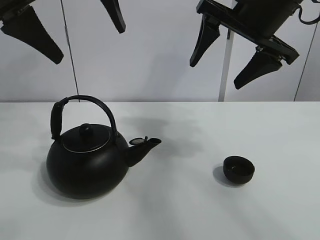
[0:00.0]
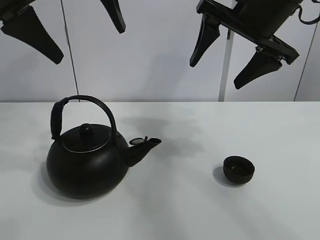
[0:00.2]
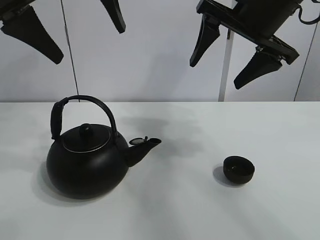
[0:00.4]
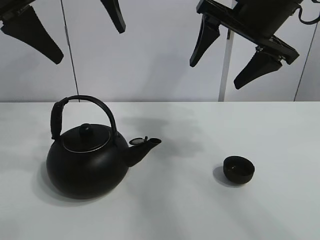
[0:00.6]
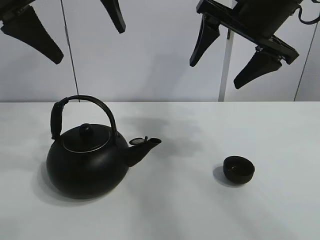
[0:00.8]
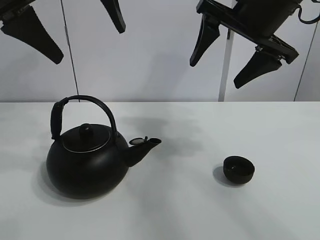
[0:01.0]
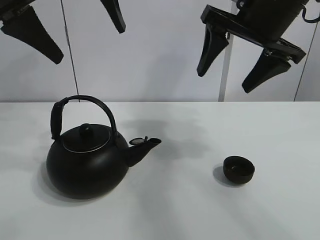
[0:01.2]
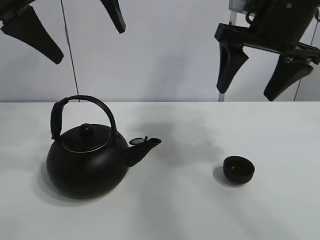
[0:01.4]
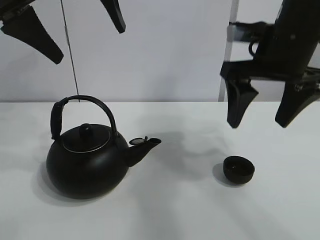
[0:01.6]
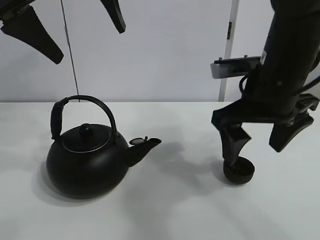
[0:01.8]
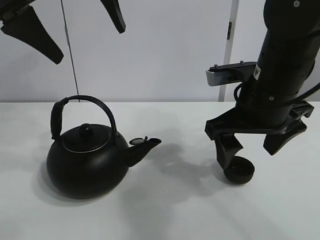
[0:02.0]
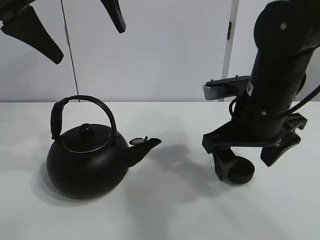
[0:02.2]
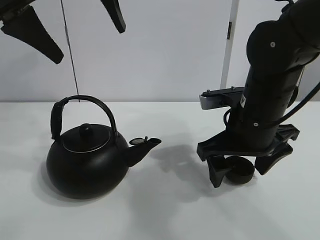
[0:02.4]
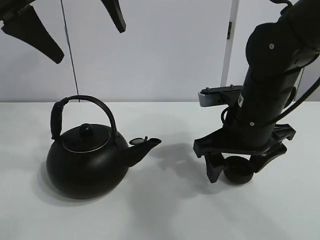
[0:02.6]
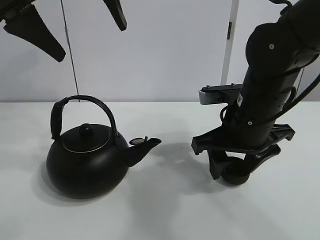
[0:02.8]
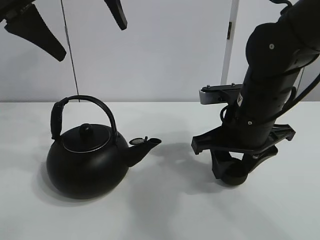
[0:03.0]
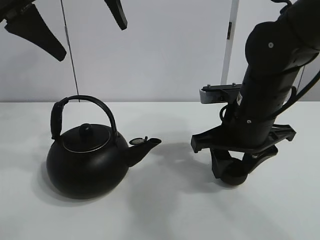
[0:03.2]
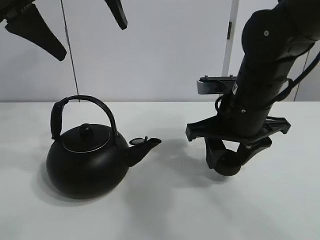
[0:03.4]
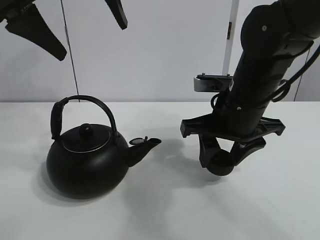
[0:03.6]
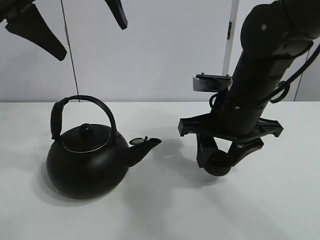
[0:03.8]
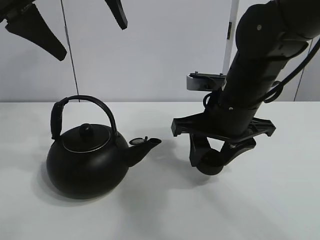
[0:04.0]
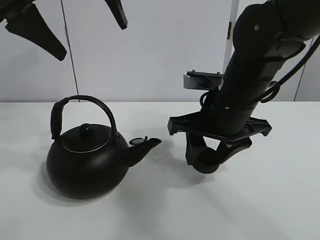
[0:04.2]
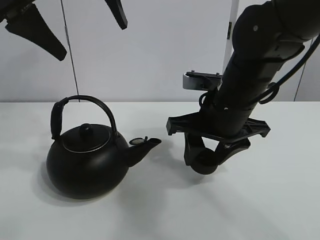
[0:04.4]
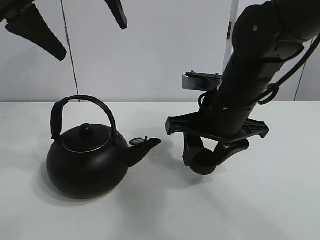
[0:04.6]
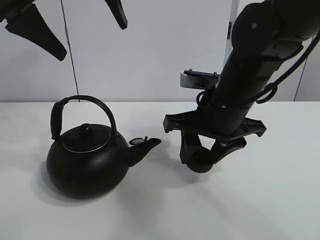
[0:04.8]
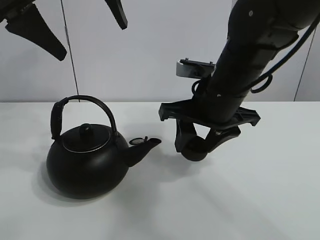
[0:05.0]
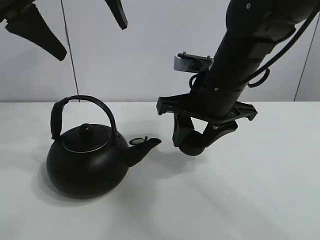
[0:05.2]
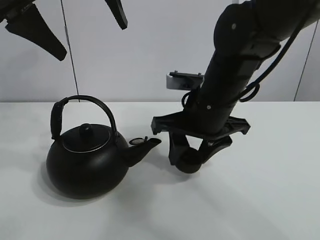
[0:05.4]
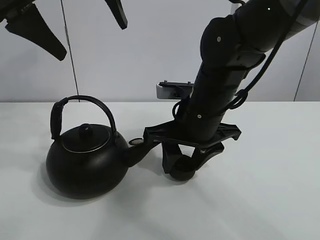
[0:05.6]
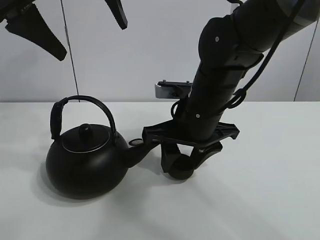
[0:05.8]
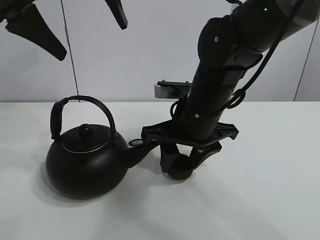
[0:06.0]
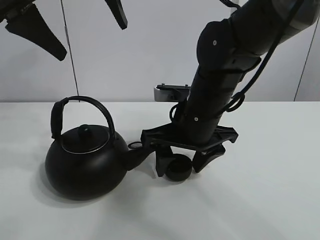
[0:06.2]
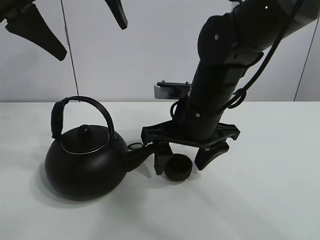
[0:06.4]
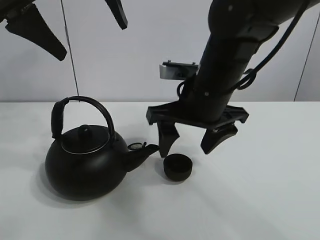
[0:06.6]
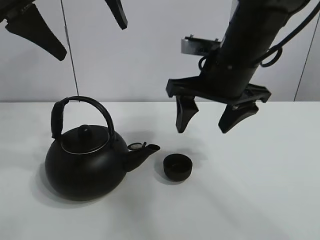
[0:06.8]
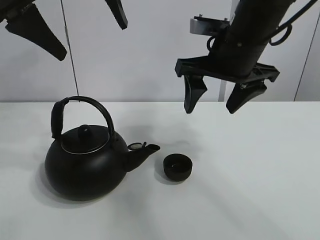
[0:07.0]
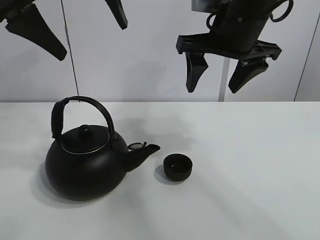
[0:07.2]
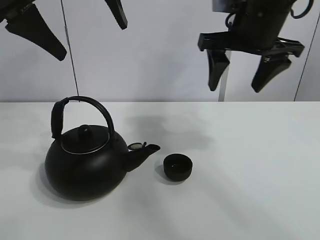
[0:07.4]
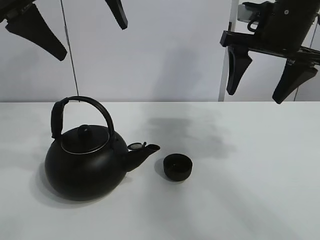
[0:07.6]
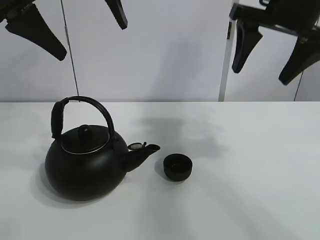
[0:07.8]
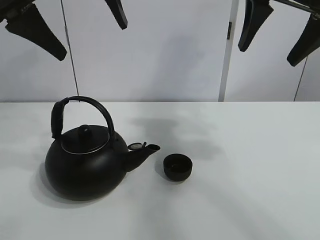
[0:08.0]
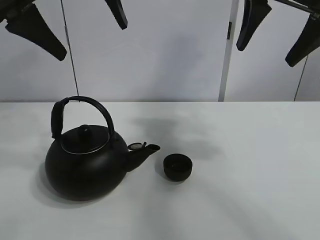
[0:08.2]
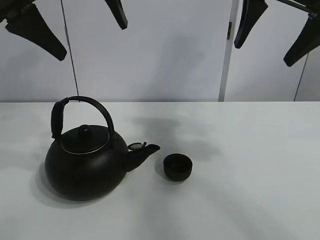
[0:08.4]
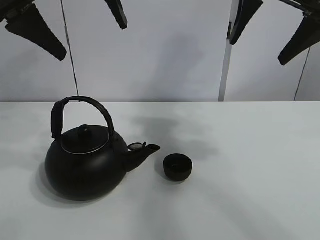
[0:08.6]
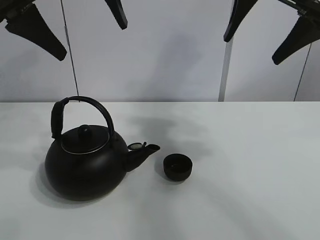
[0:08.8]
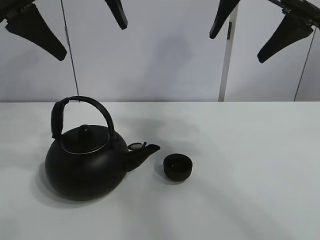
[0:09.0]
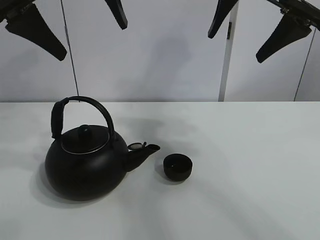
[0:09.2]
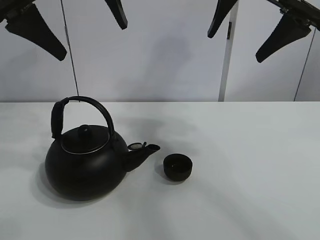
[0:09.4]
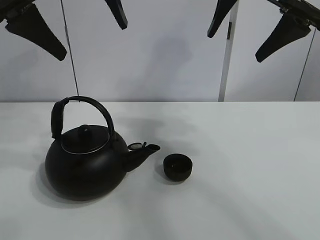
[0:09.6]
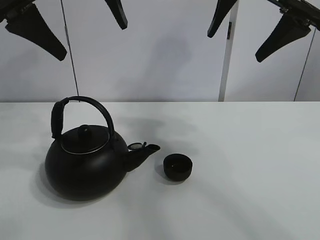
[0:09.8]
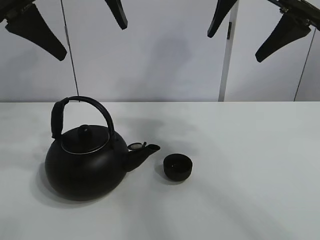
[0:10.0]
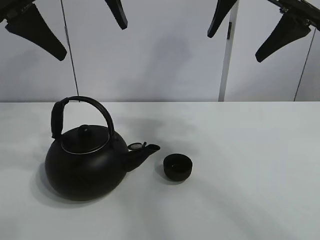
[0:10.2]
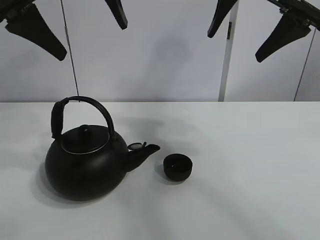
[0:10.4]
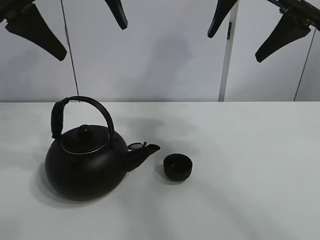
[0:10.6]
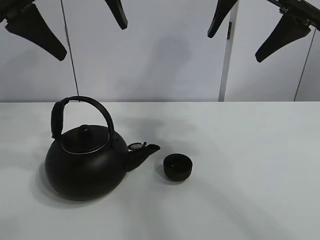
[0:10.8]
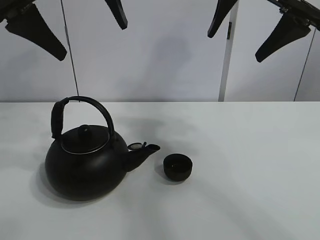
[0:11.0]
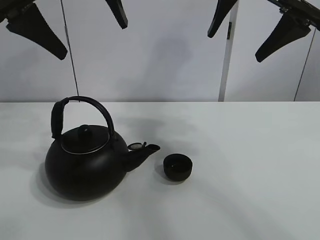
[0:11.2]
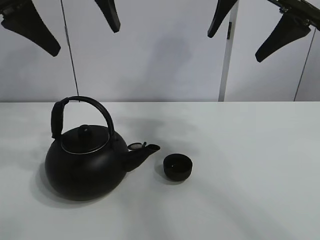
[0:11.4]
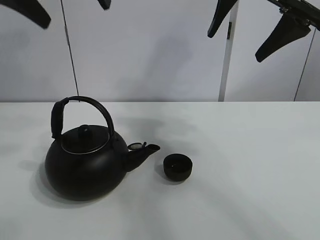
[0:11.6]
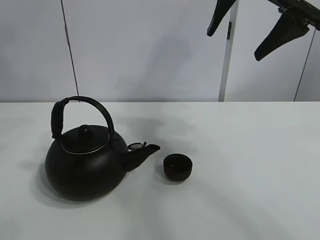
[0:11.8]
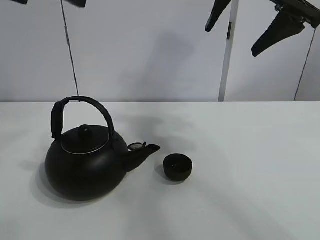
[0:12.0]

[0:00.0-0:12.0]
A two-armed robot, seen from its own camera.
Task of the whole recording: pour tea into the teacup.
Step, 0:00.0 to 0:03.0: Pick up the teacup with the right gripper.
Step, 0:03.2 to 0:06.2: Place the teacup in the center of view with the right gripper.
0:01.6 to 0:03.0: The right gripper goes about 10 cm downward, and closes its fingers.
0:03.0 to 0:04.4: The grippers move only a little.
0:04.4 to 0:06.0: There are only small adjustments of the grippers.
0:06.0 to 0:07.6: The right gripper travels upward and to the right by approximately 20 cm, and opens its fingers.
0:07.6 to 0:09.0: The right gripper shifts some 5 cm upward.
0:09.0 to 0:10.4: Neither gripper changes place.
0:10.4 to 0:12.0: The left gripper travels backward by roughly 5 cm.

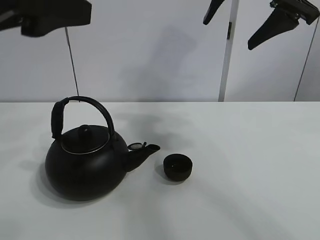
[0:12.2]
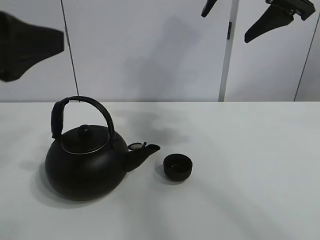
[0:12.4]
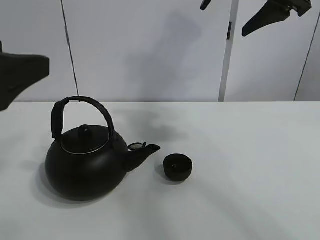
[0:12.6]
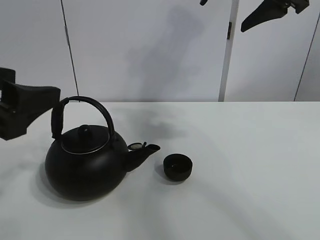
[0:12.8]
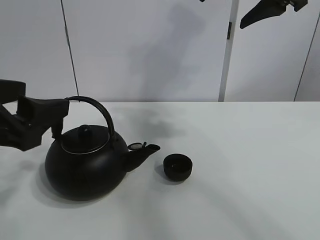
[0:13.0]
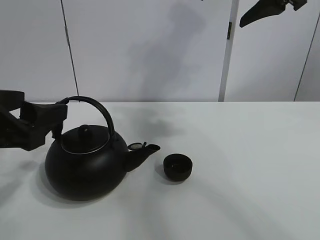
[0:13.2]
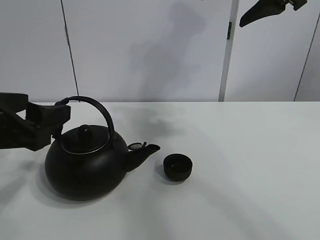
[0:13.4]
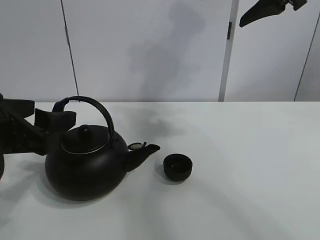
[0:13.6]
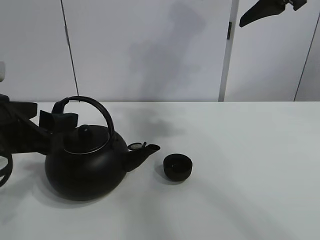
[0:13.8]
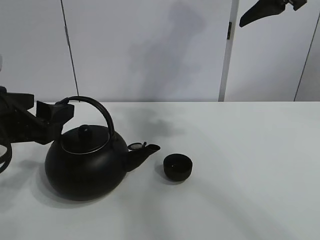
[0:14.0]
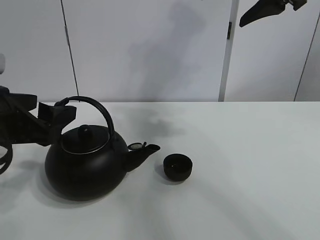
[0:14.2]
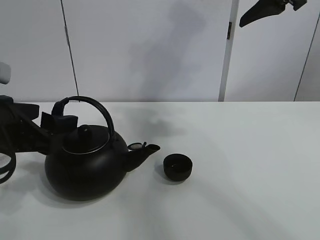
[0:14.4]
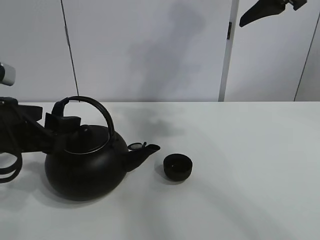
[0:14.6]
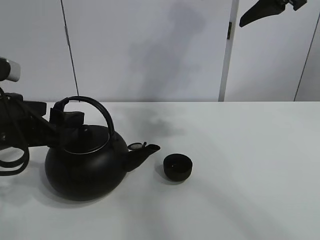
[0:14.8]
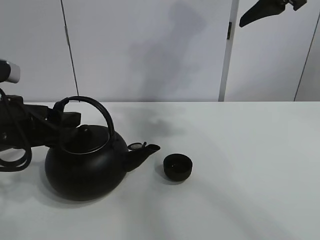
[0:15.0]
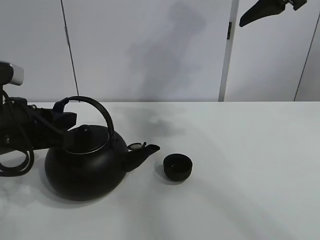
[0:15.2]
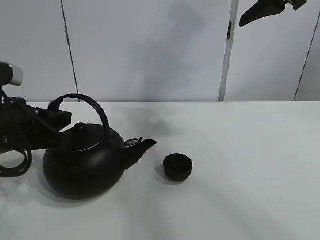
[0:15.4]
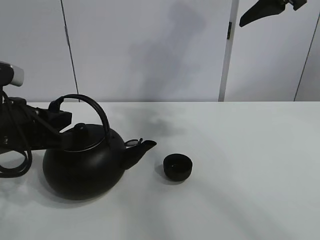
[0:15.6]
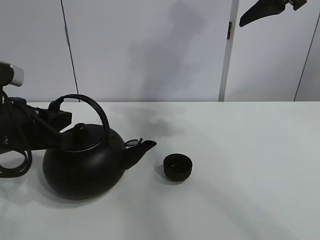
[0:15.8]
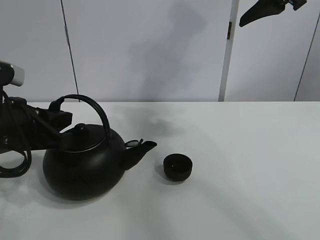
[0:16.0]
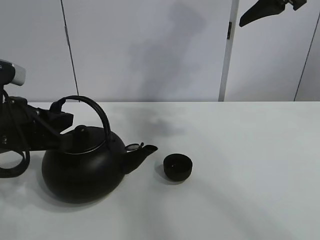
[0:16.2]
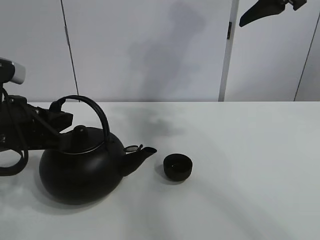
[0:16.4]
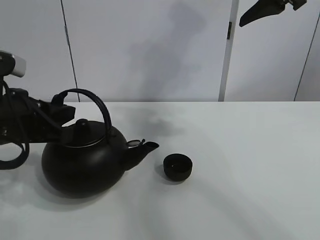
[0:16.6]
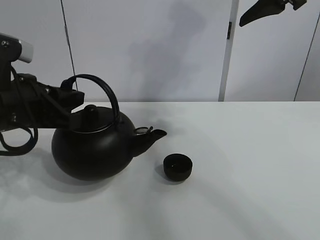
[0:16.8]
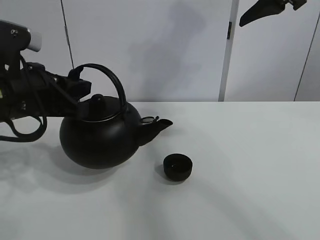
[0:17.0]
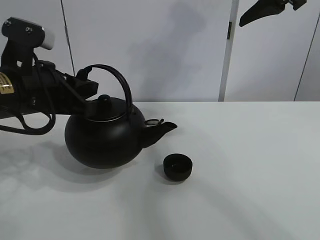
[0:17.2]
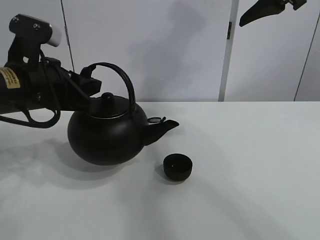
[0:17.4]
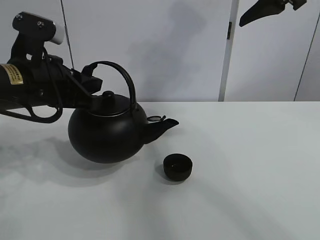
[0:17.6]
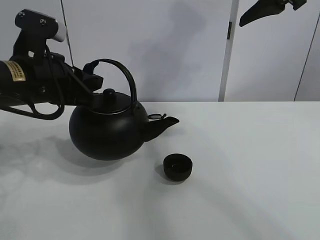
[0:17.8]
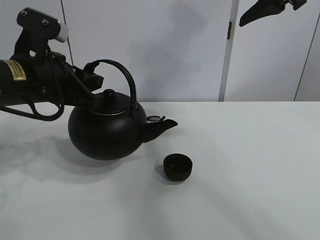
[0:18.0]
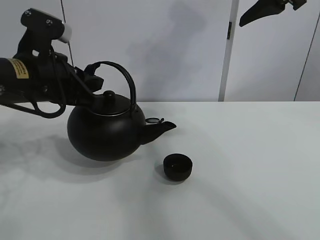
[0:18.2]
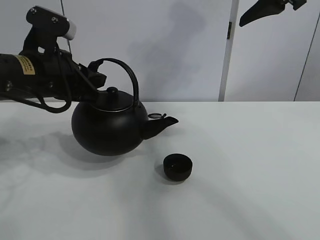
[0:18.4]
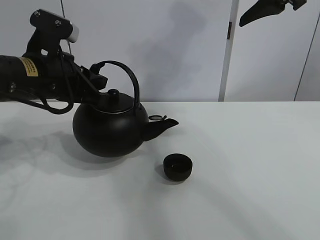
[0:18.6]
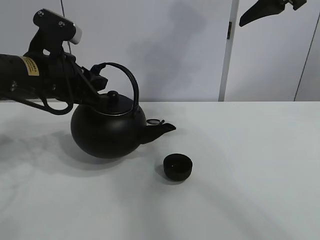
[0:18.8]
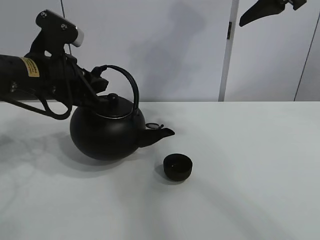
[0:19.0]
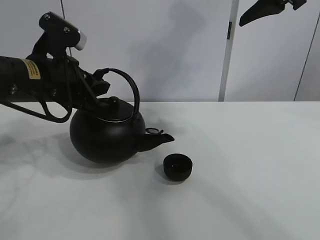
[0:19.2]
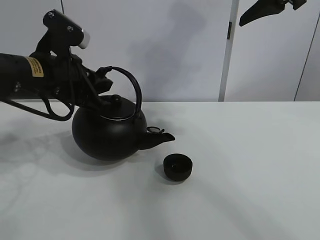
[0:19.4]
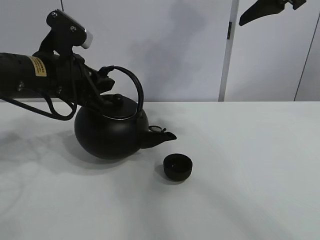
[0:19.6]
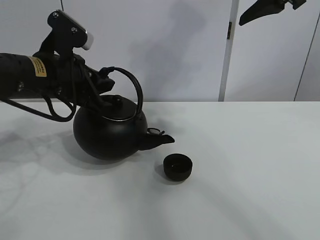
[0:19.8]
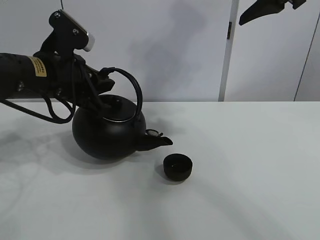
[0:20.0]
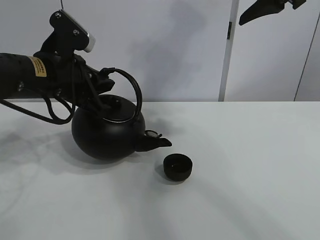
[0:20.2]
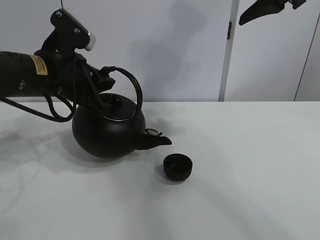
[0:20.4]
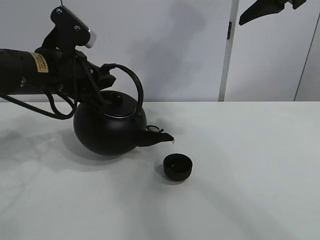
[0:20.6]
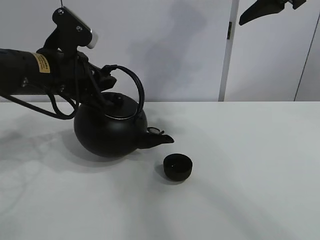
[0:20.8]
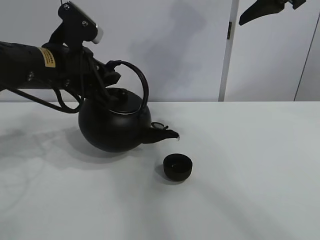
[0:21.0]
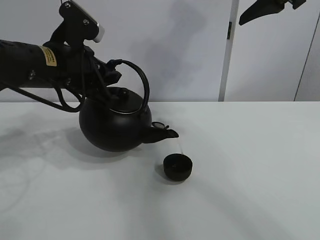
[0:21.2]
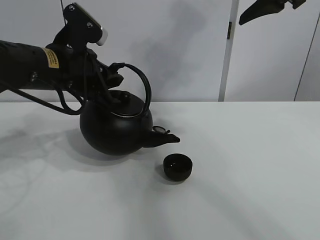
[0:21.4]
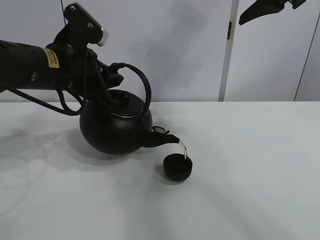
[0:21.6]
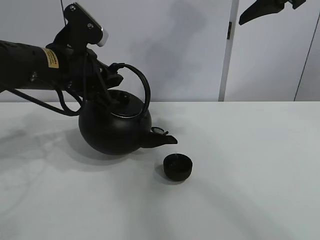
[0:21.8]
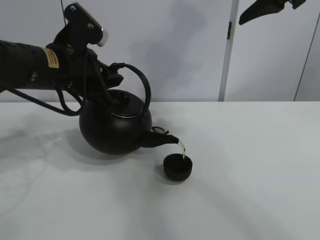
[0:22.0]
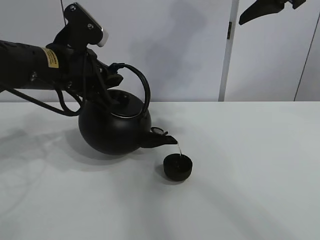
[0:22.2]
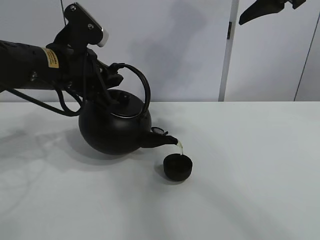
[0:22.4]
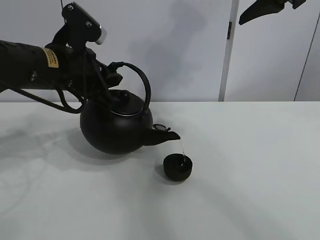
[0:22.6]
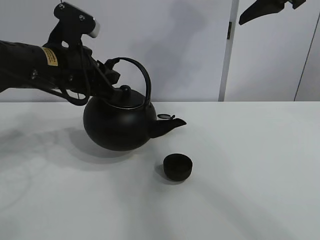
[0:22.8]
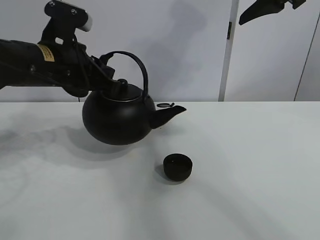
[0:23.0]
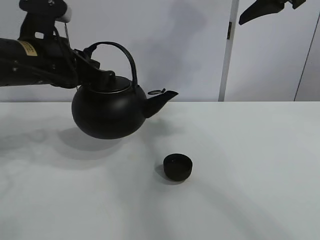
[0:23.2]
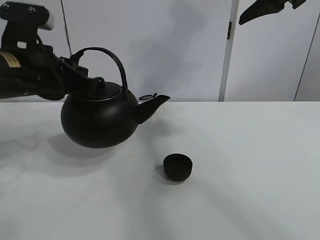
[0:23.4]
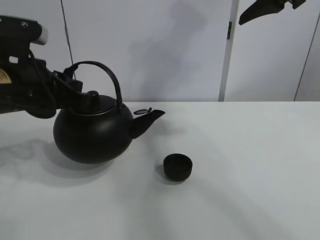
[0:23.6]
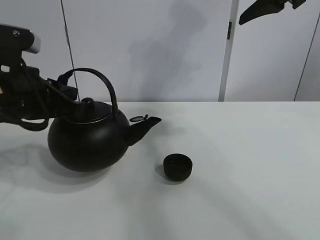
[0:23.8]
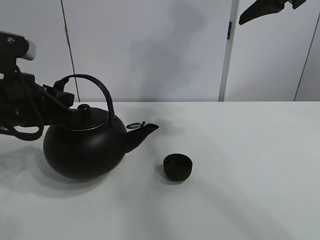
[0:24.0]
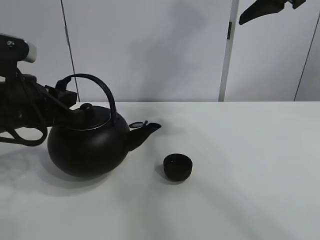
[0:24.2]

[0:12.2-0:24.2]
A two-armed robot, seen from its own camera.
Task of the whole recording: pour tea into the teacup.
Step, 0:12.2 to 0:15.6: Pick up the teapot with the left gripper.
Step, 0:15.8 to 0:22.8: Pour tea into the teacup with the left gripper.
0:12.2 to 0:13.8: The left gripper moves downward, about 15 cm.
0:13.8 to 0:15.2: The left gripper closes up.
0:15.2 to 0:16.6: There are only small adjustments of the grippers.
0:16.6 to 0:18.2: The left gripper shifts some 5 cm forward.
0:18.2 to 0:21.2: There are only small adjustments of the grippers.
0:21.2 to 0:22.6: Neither gripper changes place.
0:22.6 to 0:24.2: The left gripper travels backward and to the left by approximately 10 cm.
